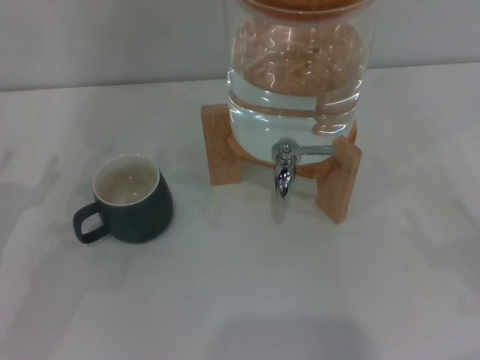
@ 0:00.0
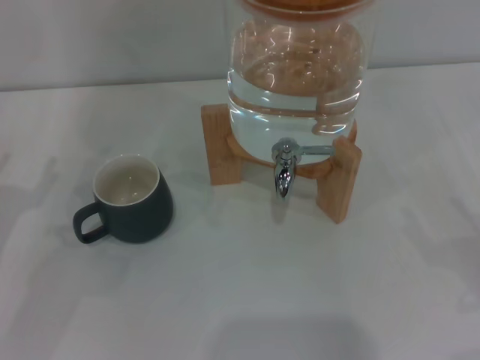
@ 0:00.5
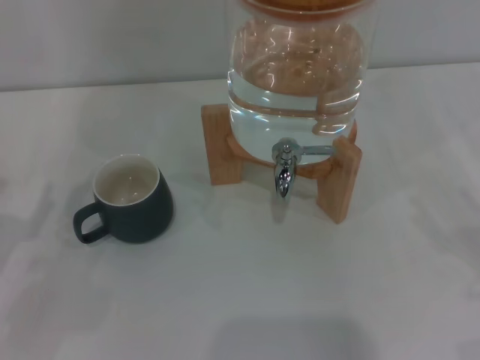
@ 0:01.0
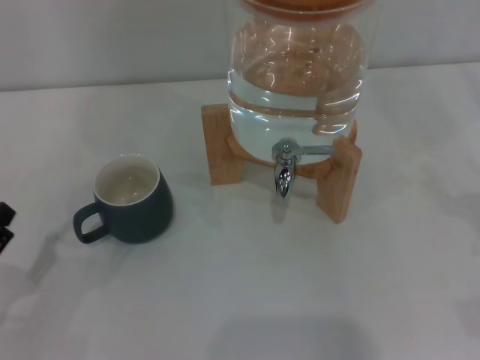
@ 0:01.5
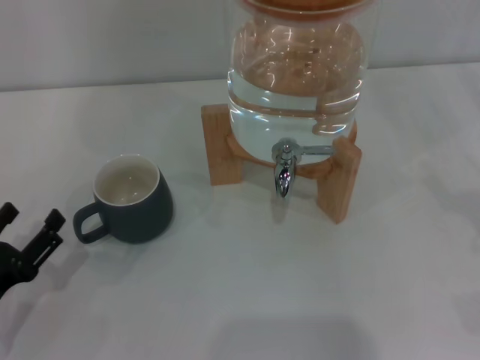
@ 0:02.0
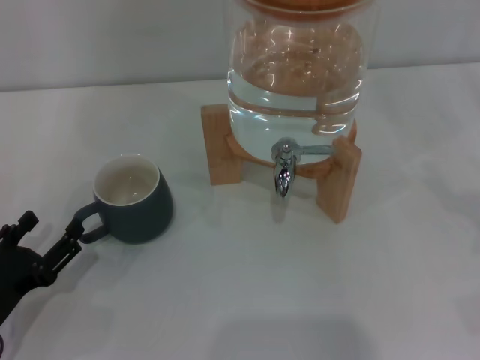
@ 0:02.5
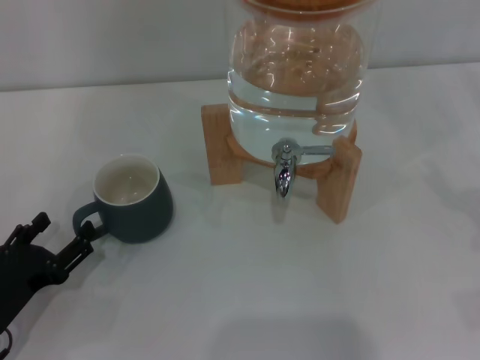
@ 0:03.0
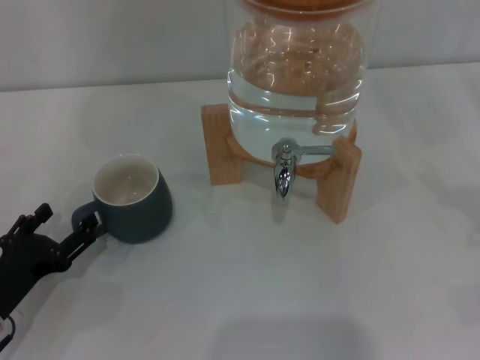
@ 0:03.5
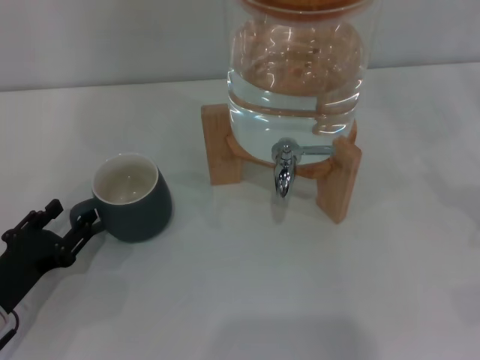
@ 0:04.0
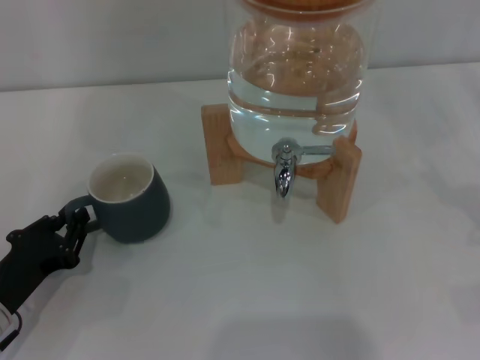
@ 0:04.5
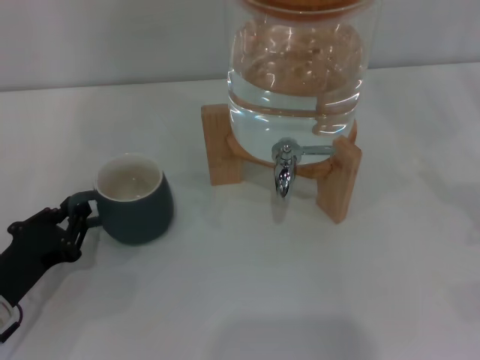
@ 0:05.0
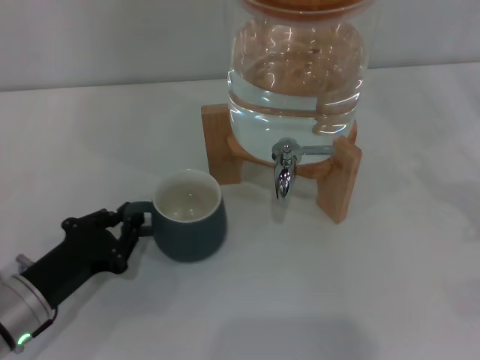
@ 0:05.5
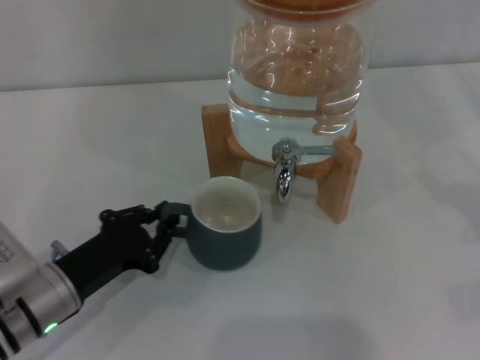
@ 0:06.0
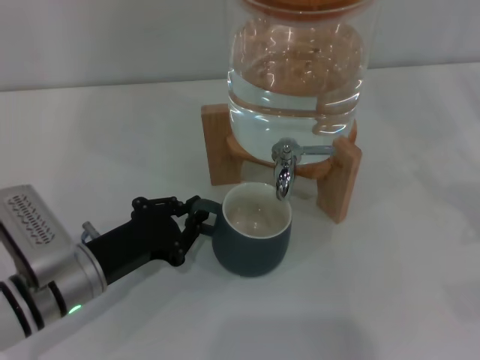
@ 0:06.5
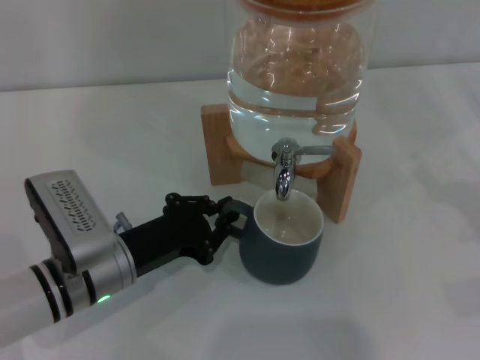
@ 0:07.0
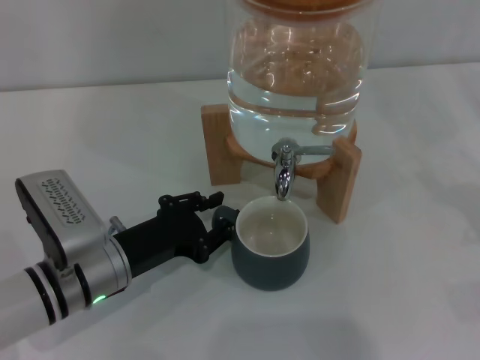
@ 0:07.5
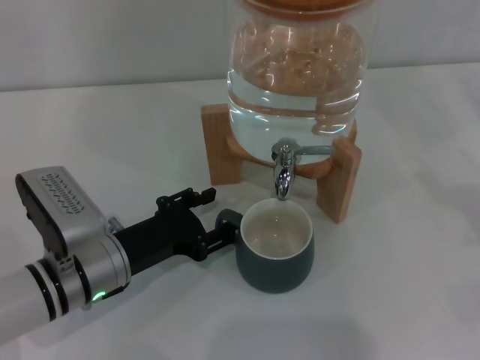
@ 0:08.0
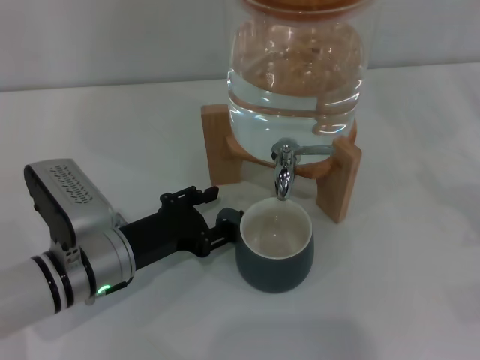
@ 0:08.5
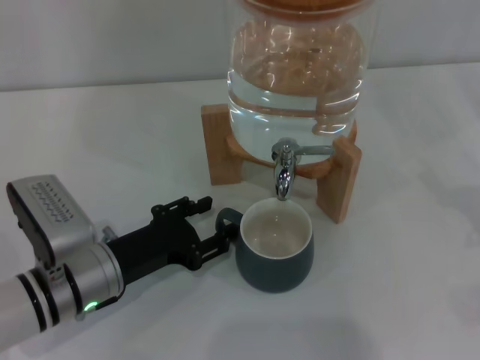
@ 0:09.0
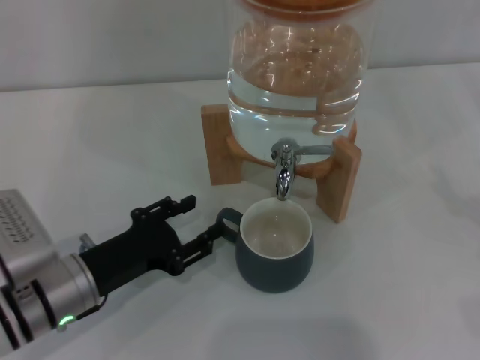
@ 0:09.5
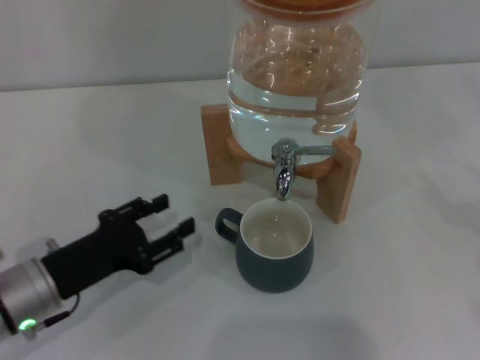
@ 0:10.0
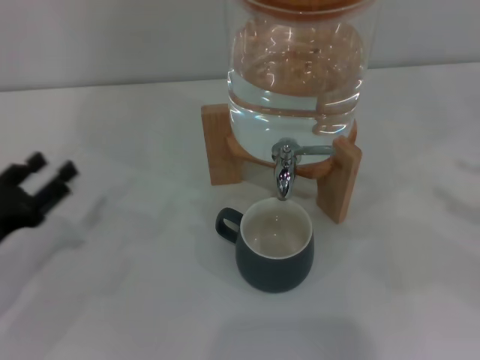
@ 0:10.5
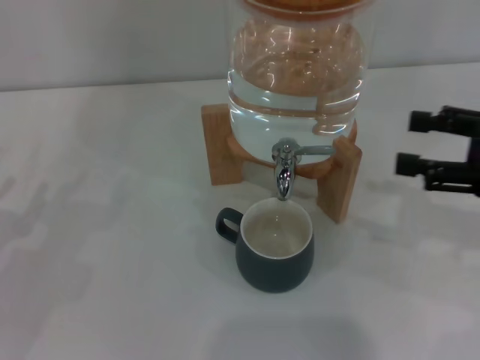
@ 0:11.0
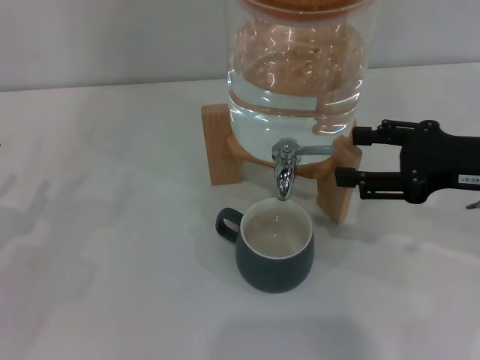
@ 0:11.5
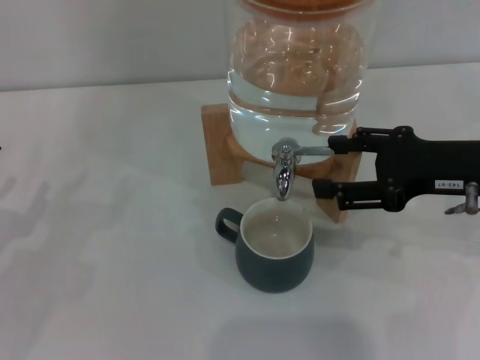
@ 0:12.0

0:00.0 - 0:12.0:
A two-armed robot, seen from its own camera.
Task of the whole recording: the left gripper pick up the black cup and place it horizontally under the faucet, the right gripper turn on the faucet to fill the cup, and then turn off the faucet.
Step, 0:00.0 - 0:09.5: Move the cup beneath the water dispenser nozzle with the left gripper.
0:00.0 - 0:02.0: The left gripper goes roughly 10 cm backward and downward.
0:02.0 - 0:04.0: The grippers stay close to where they were, moving slightly.
0:04.0 - 0:06.0: The left gripper moves to the right, roughly 5 cm, and closes its fingers.
0:06.0 - 0:08.0: The left gripper moves approximately 5 cm, and opens its fingers.
0:08.0 - 0:10.0: The left gripper moves to the left, about 5 cm.
0:10.0 - 0:12.0: The right gripper moves to the left and forward, some 20 cm. The left gripper travels to the left by approximately 10 cm.

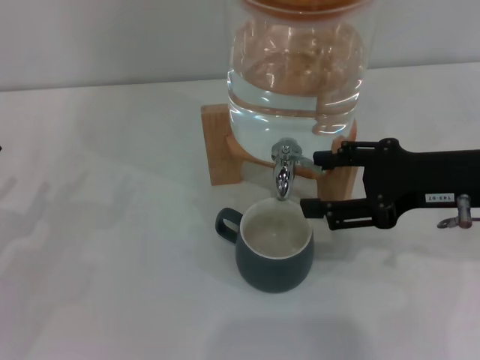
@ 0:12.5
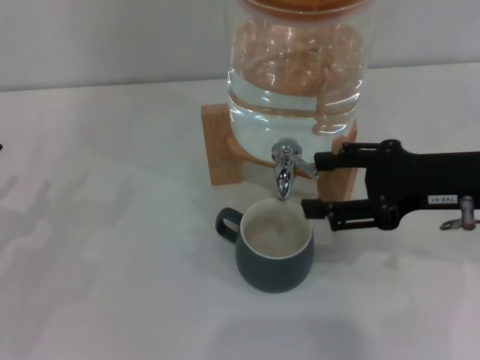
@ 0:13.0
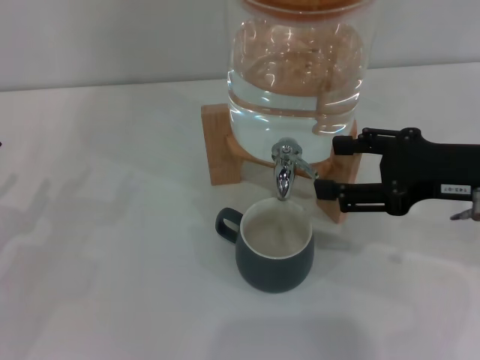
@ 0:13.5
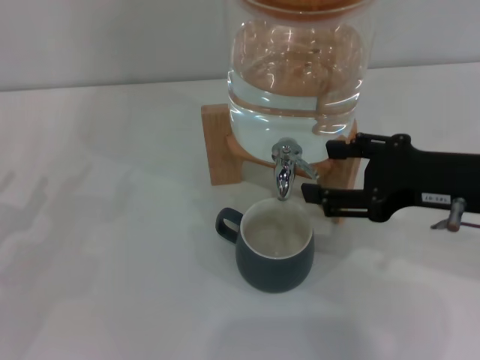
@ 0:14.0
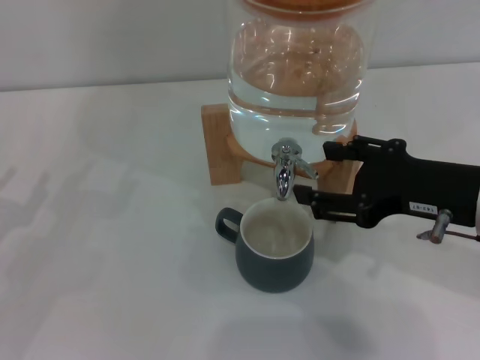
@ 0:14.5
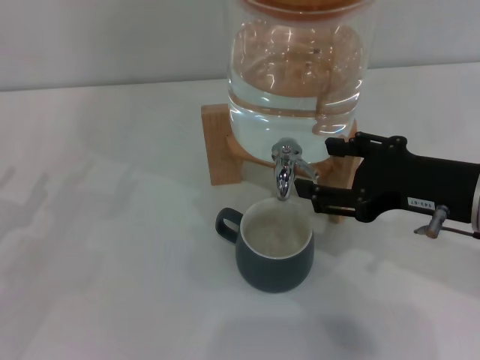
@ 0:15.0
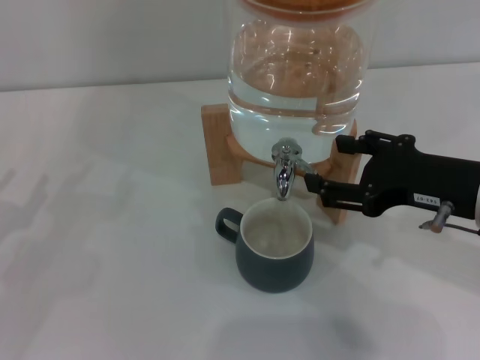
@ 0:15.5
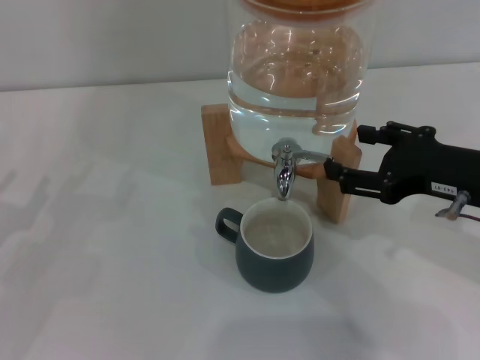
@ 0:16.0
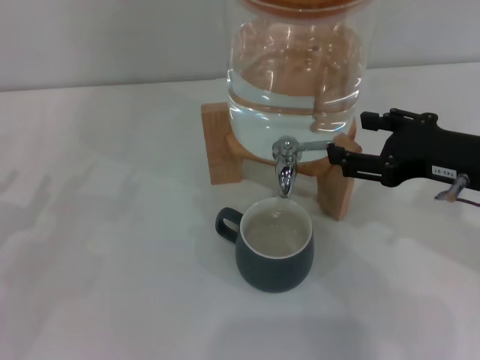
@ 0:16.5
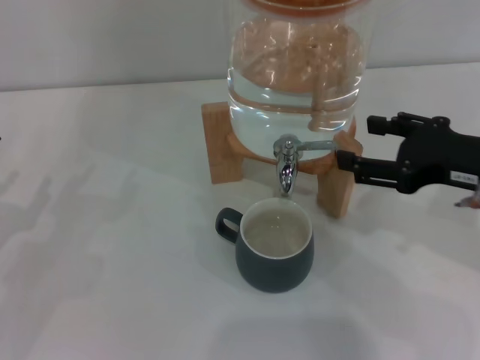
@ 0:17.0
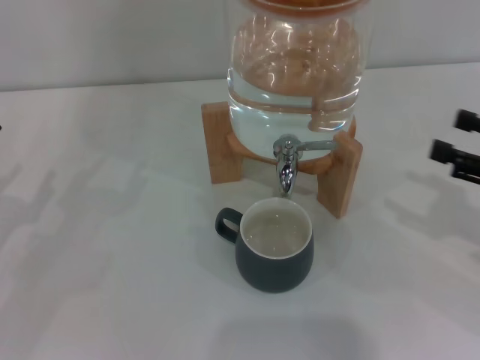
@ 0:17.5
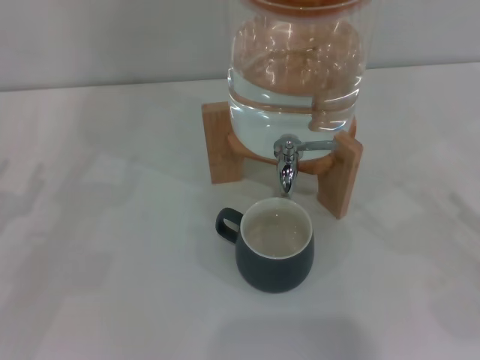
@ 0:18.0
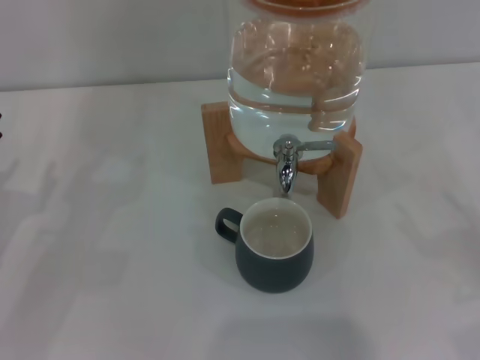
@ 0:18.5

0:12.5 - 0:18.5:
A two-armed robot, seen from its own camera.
Task of the whole recording: the left gripper pick up the black cup and place it horizontally under the faucet, the right gripper turn on the faucet to fill the cup, and then turn off the faucet.
Step, 0:13.5 - 0:16.5: Close the dispenser valve with the right gripper.
0:12.5 - 0:14.5: The grippers move only a little.
0:14.5 - 0:16.5: There are only small adjustments of the grippers.
0:16.5 - 0:18.5: The right gripper moves to the right, downward and backward, approximately 20 cm.
